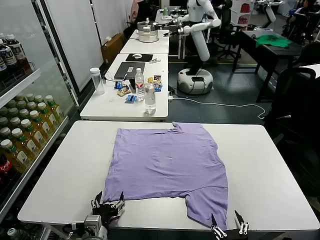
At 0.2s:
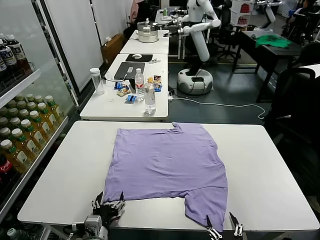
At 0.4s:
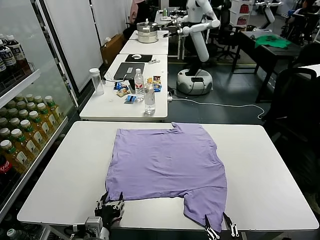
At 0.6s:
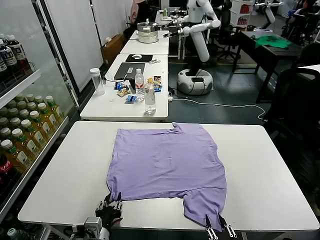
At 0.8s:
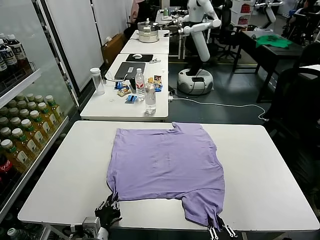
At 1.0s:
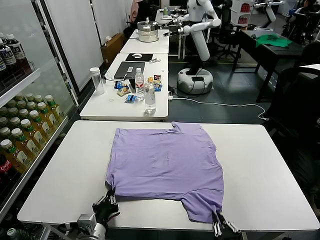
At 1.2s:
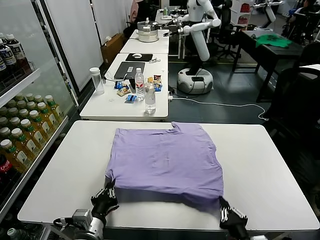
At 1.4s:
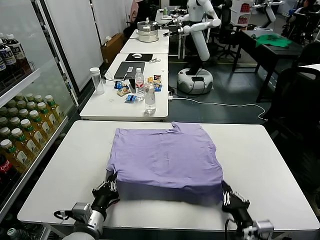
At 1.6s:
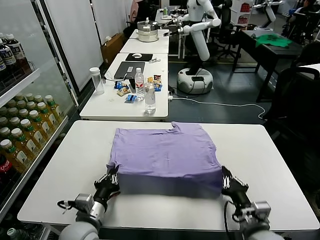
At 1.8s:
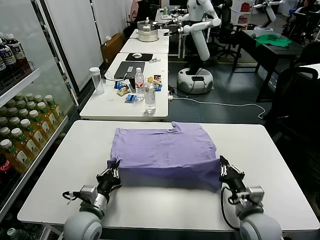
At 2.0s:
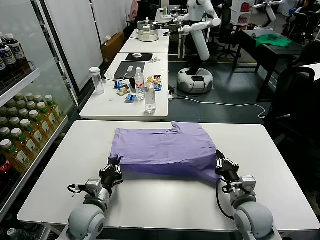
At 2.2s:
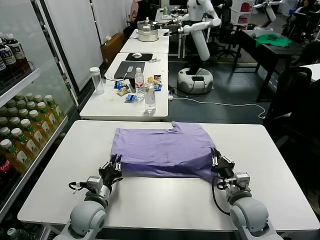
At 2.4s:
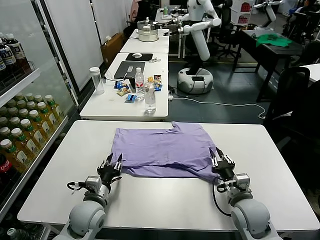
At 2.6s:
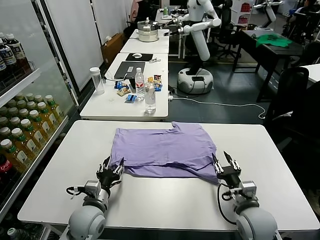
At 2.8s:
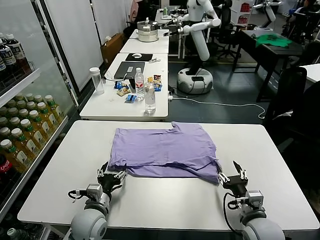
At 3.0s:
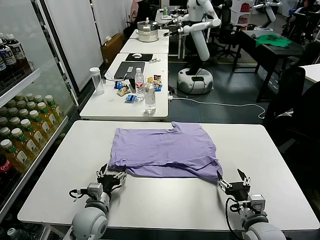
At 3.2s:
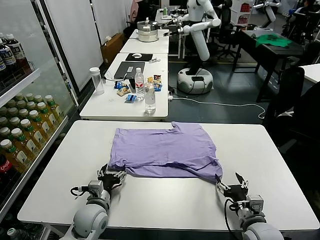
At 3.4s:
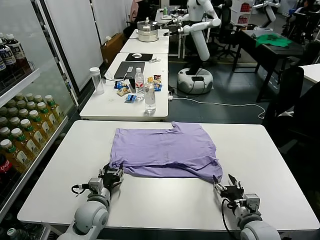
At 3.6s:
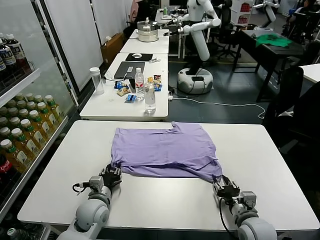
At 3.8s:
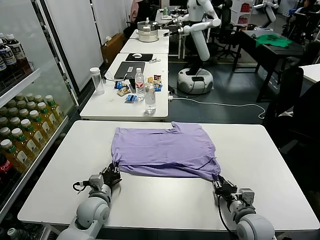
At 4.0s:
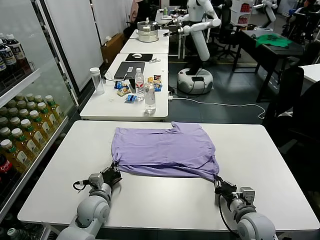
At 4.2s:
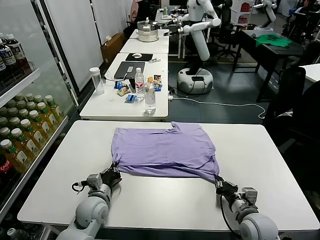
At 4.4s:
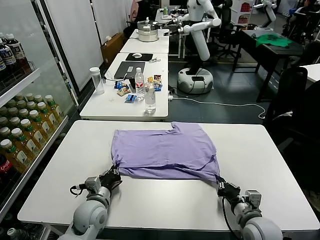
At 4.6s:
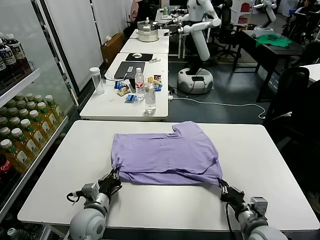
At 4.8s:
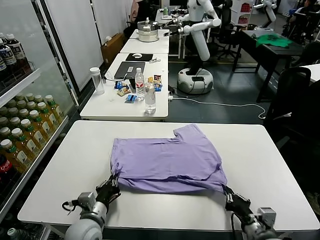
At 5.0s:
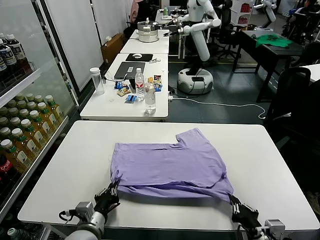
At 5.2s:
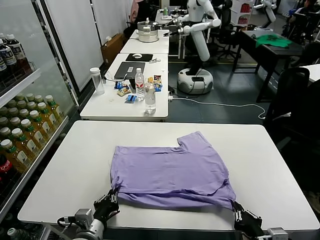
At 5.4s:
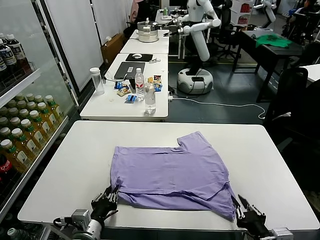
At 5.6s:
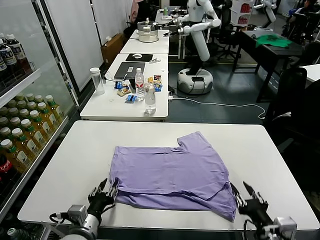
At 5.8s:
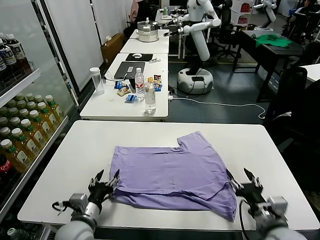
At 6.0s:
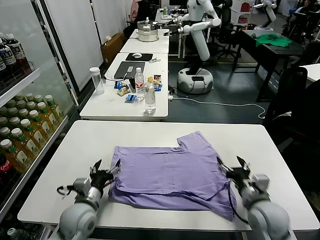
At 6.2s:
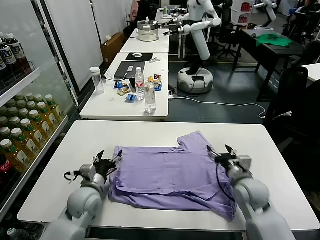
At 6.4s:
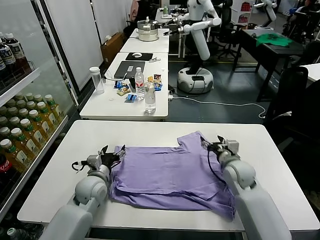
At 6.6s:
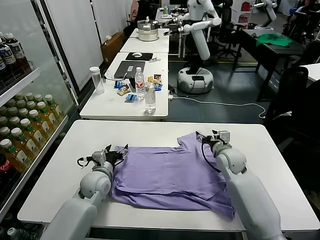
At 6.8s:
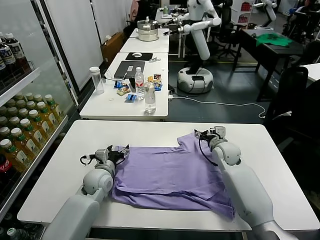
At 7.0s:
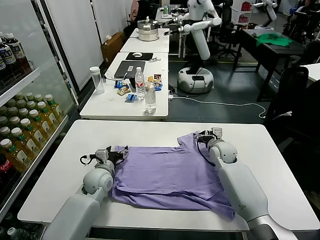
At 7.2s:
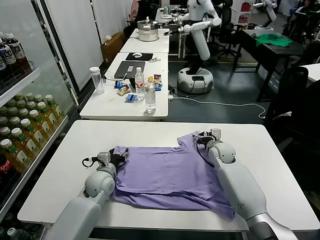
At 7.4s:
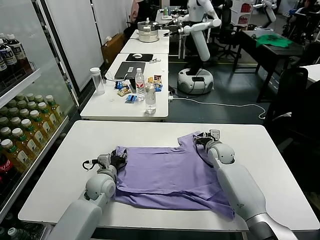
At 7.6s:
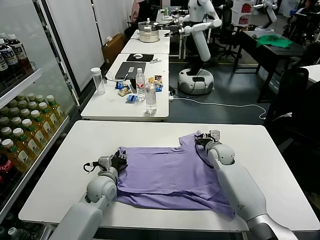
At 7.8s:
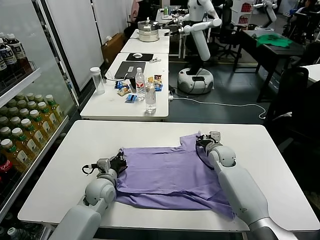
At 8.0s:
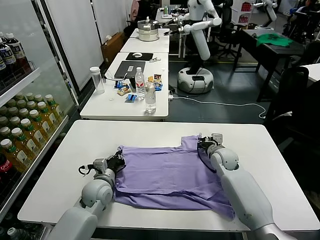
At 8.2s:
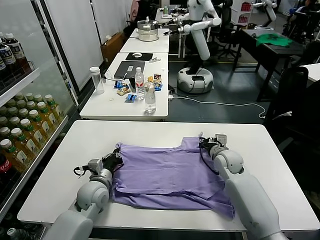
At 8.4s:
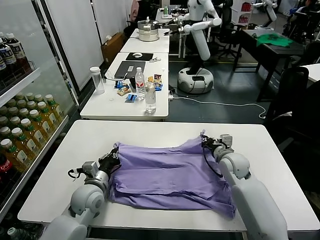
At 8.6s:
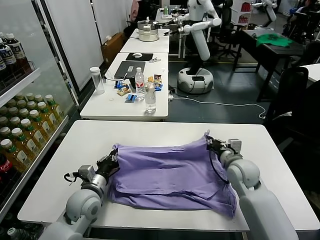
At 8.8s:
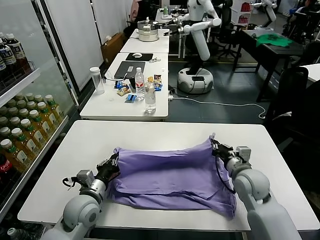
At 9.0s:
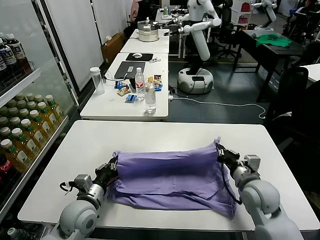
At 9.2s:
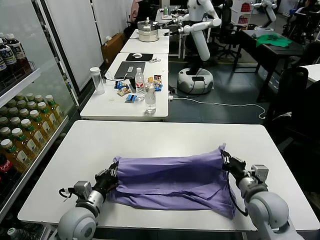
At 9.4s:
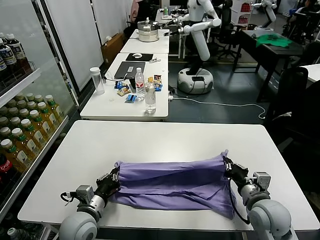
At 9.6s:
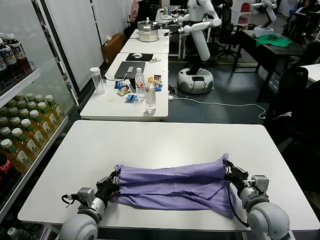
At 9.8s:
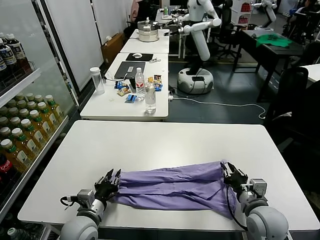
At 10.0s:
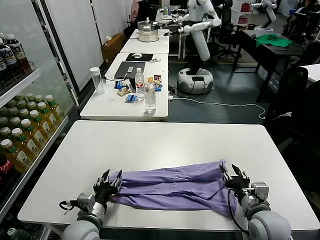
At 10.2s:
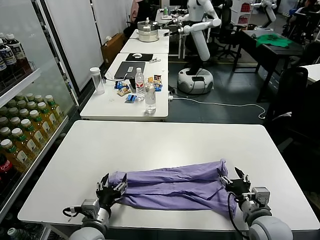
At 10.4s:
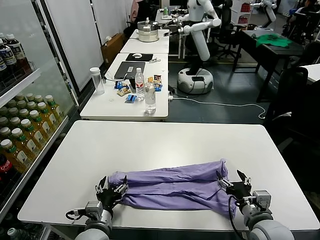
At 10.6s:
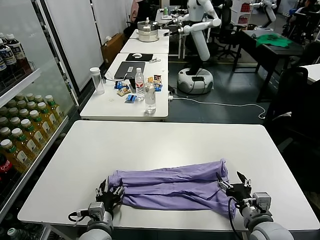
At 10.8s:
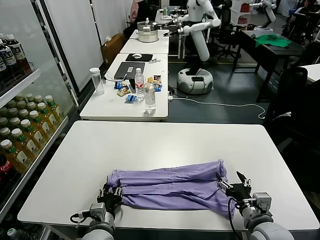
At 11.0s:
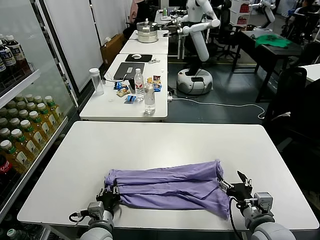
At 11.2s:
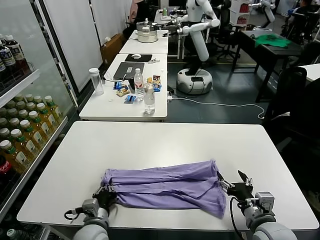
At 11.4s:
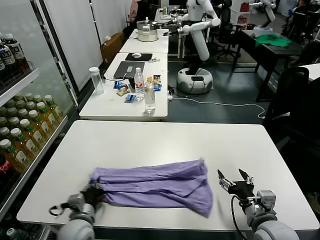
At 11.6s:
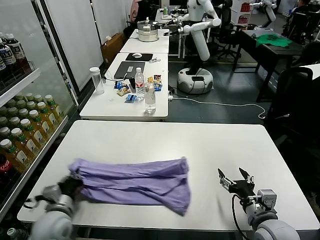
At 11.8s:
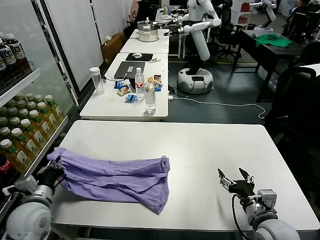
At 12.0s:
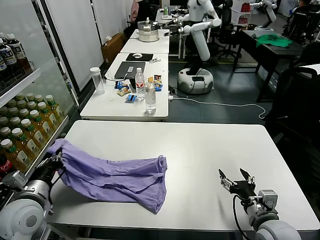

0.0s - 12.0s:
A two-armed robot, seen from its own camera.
Task of the whole recording: fold and organize the clothes.
Step, 0.0s - 1.2s: use both grippers simultaneously to clamp the lower edge of the clothing fabric.
Step, 1.4s - 2.8s: use both grippers to drag the lower edge of the fabric forward and fold it over the upper edge.
Step, 3.0s - 5.4s: Drag the clothes downward with both gripper.
Step, 5.8s - 8.0s: use both grippers simultaneously to clamp the upper edge of the clothing fabric.
Step, 8.2s - 10.0s: use both grippers to drag the upper edge of the fabric backward and fold it over the lower edge.
Step, 10.2s - 11.2s: use the left gripper to clamp the left edge of the fabric.
1.6s - 3.0s: The left gripper moves forward, roughly 5 cm, and opens up, while the right gripper opens up.
3.0s - 4.4s: The right gripper closes, while the left gripper closes.
4.4s - 6.0s: The right gripper moves forward, roughly 10 cm, and opens its fingers. The left gripper goes backward and returns, roughly 10 cm each way, and opens.
6.0s - 7.6s: The right gripper heads forward, covering some 20 cm, and closes up. Meanwhile the left gripper moves forward, roughly 10 cm, and closes its fingers.
7.6s - 9.0s: The right gripper goes some 20 cm backward. The left gripper moves backward and upward, about 15 cm.
9.0s - 10.4s: The two grippers go about 10 cm backward. The right gripper opens up. The left gripper opens.
10.4s - 12.0s: The left gripper shifts roughly 20 cm to the left and upward, and closes.

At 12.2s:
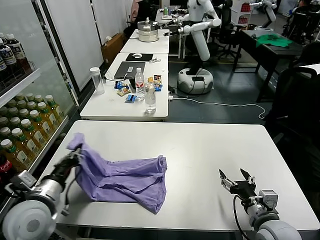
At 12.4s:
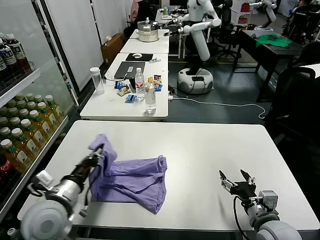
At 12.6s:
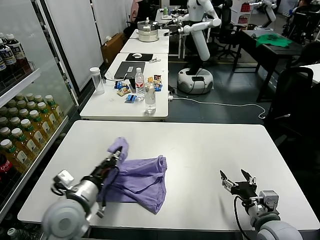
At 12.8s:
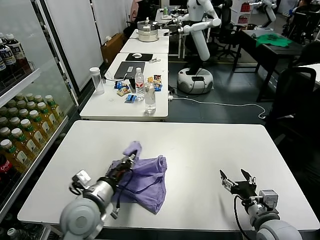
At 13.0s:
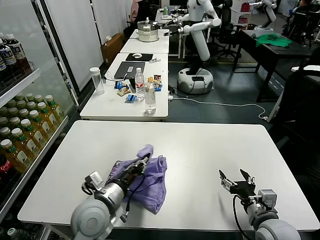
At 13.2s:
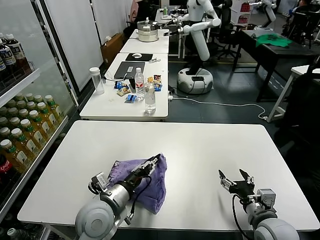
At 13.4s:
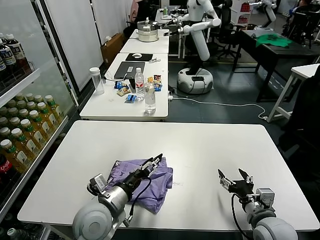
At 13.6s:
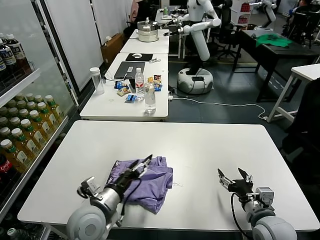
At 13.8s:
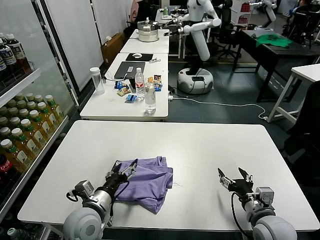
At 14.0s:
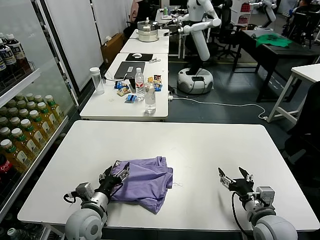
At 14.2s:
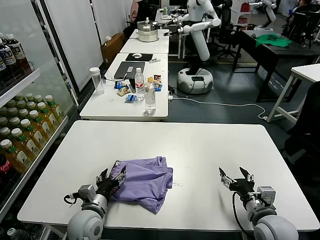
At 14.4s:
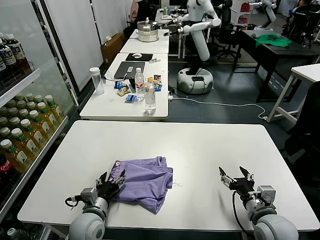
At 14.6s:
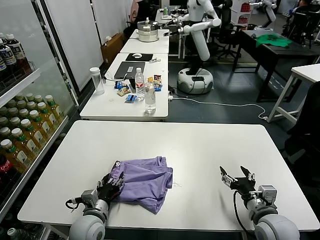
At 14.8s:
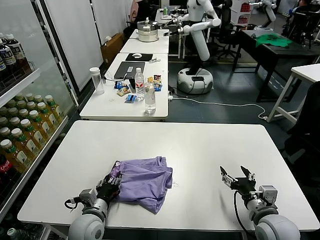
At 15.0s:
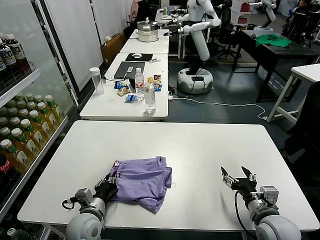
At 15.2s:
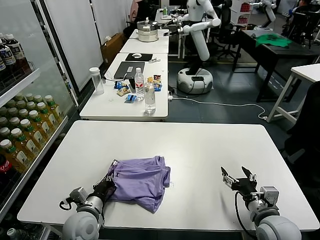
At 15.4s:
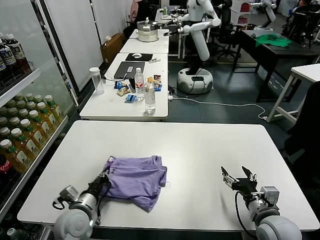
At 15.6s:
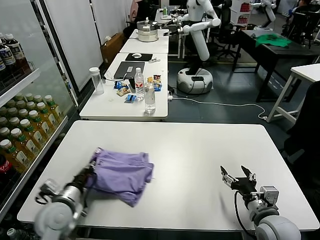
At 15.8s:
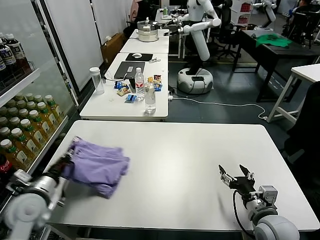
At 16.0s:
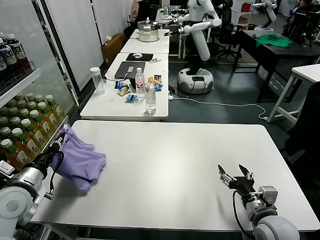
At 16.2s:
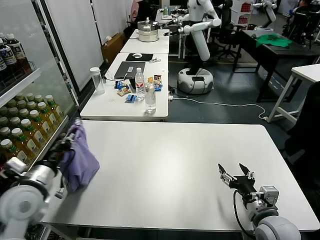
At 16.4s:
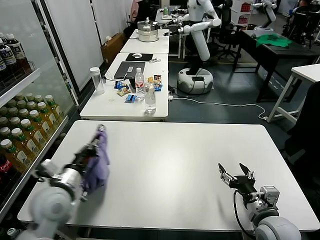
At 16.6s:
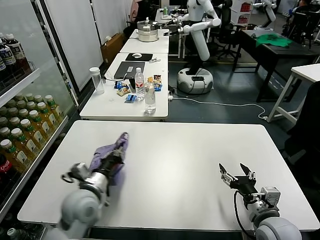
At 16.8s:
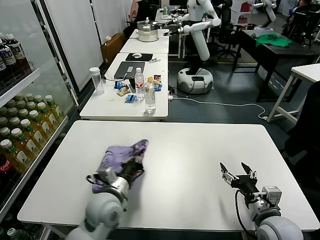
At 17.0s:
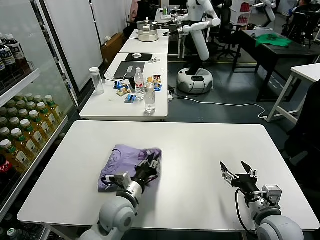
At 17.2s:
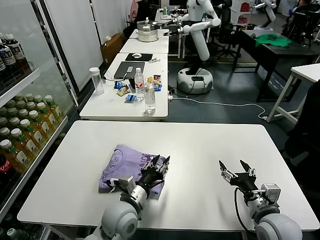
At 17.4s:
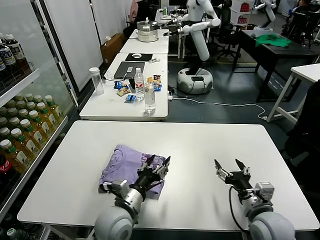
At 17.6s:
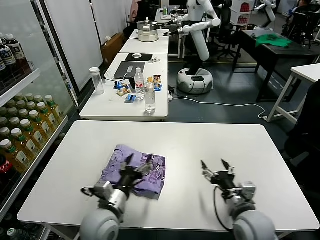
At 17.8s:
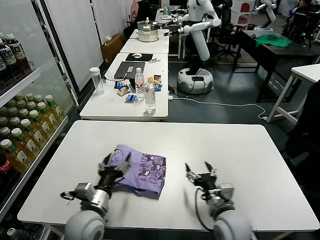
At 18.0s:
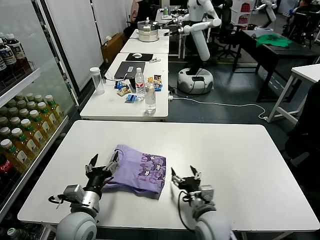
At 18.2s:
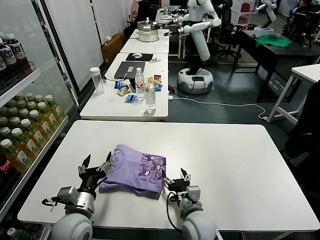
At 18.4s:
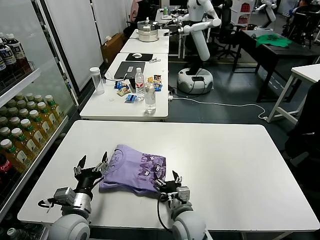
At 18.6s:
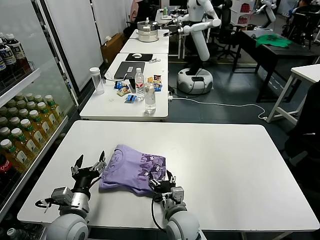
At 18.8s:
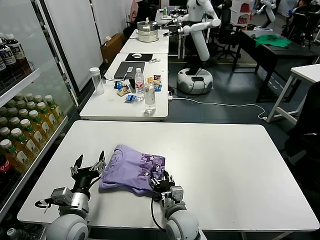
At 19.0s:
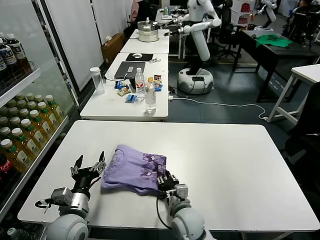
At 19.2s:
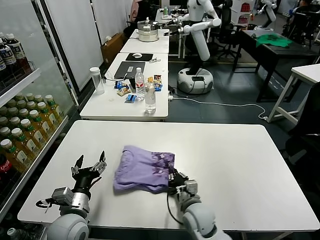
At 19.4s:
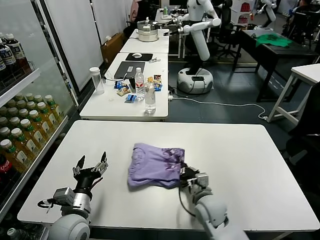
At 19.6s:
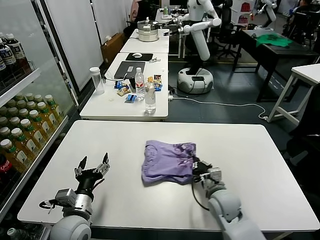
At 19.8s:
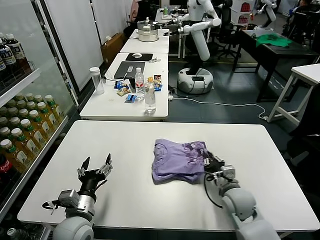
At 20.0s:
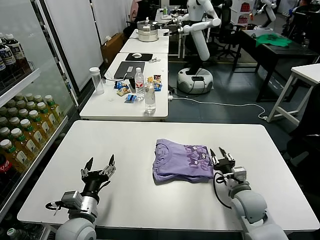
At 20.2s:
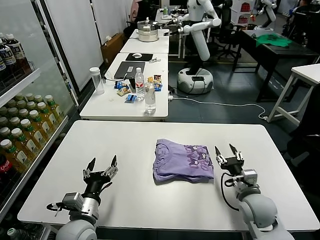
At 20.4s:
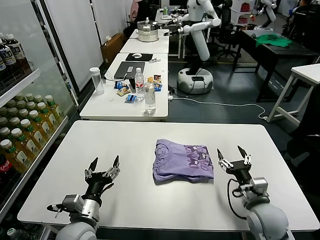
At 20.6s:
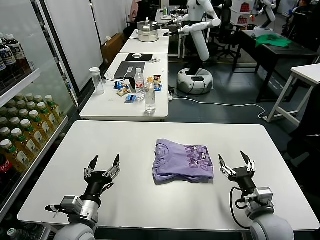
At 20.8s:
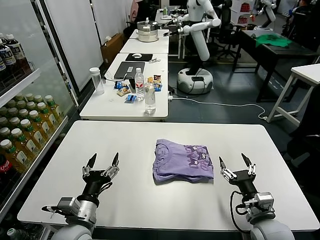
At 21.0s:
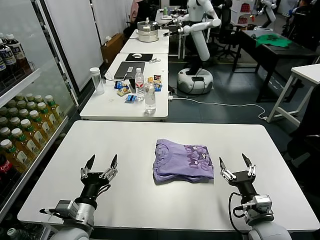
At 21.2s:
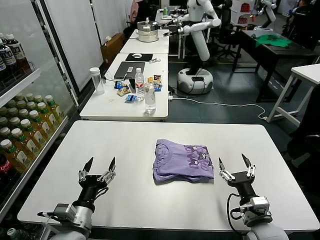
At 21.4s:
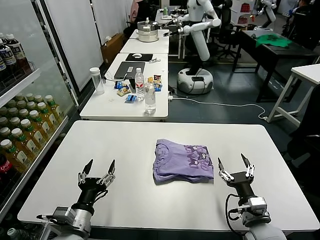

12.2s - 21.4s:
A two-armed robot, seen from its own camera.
Task of the whole recording: fold and organize the clothes.
Step, 12.2s - 13.4s: use the left gripper to drag the left edge of the fabric to the left and folds it over the right edge.
Step, 13.6s - 17.4s: Flip the folded clothes over with left gripper.
Step, 17.6s - 20.4s: Drag the clothes to the center of the table.
12.2s - 13.8s: The left gripper shifts approximately 15 cm to the right and downward, and opens.
13.8s - 15.2s: The left gripper travels downward by roughly 5 cm, and closes up.
15.2s - 16.8s: The left gripper is displaced upward by about 5 cm, and travels to the left and back again, some 15 cm each way.
16.8s - 18.4s: The left gripper shifts about 10 cm to the left and backward, and opens, while the right gripper heads to the left and downward, covering approximately 25 cm.
18.4s - 19.8s: The right gripper shifts some 15 cm to the right and forward, and closes up.
19.8s - 21.4s: The right gripper heads backward, covering roughly 10 cm, and opens its fingers.
